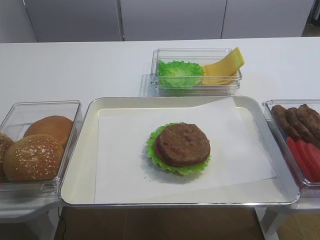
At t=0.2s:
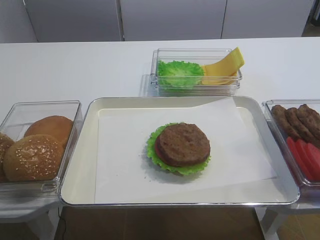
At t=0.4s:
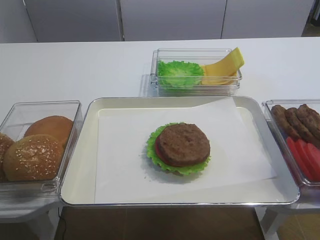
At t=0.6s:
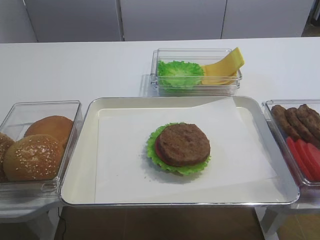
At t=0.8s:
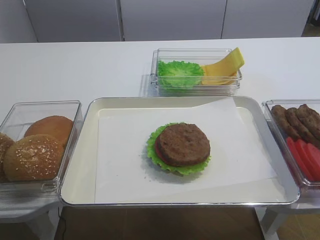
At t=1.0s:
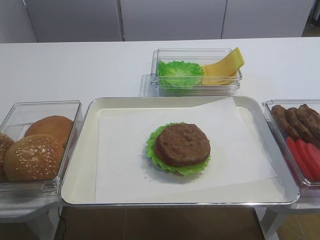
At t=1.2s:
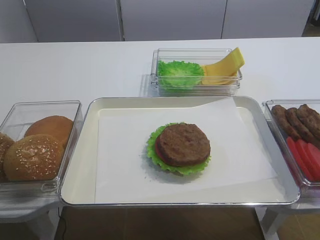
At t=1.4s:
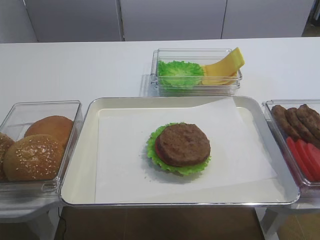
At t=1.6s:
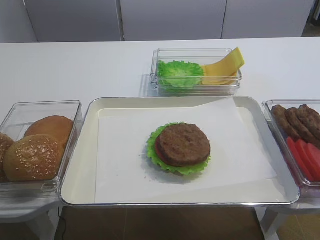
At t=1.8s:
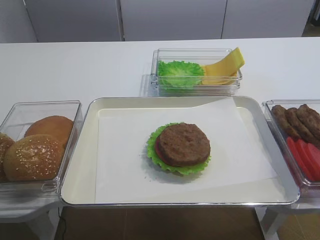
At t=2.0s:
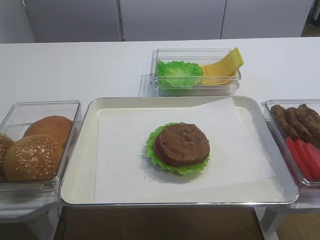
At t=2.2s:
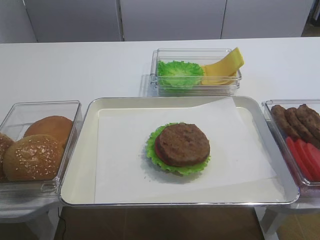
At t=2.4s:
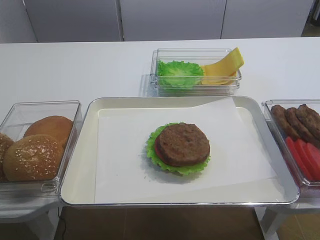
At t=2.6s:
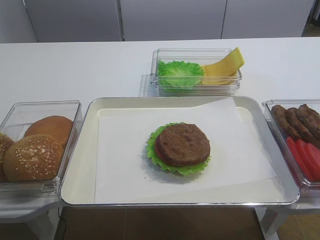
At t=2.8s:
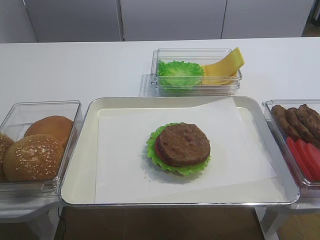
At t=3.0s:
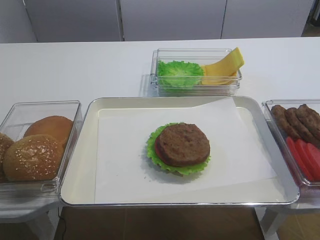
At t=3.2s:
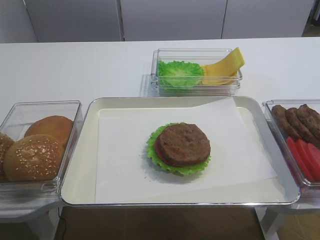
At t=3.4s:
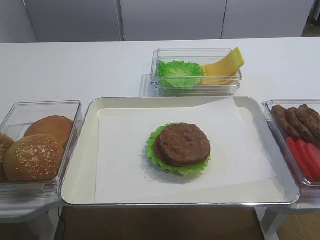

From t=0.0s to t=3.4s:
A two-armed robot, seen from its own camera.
From t=1.6s to t=3.4s: Both grippers stay about where they are.
